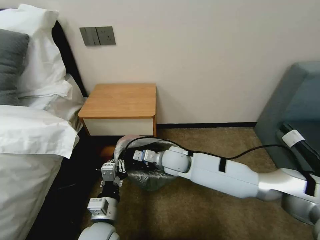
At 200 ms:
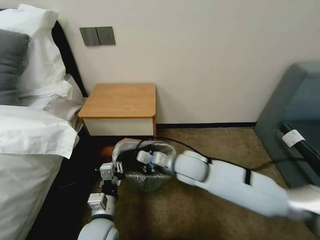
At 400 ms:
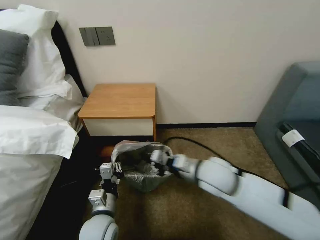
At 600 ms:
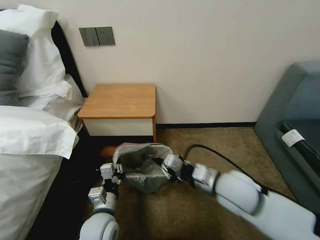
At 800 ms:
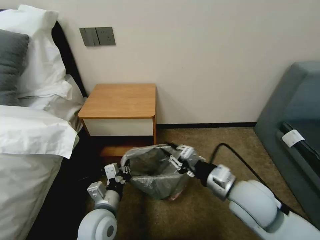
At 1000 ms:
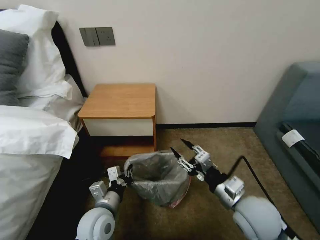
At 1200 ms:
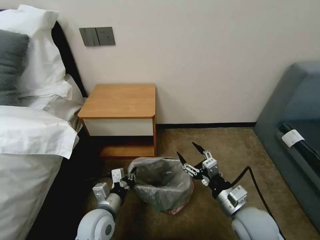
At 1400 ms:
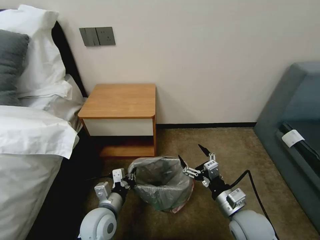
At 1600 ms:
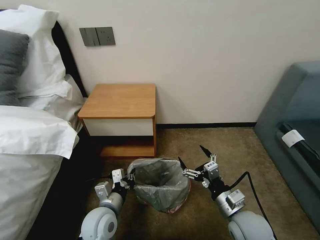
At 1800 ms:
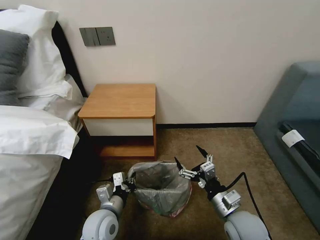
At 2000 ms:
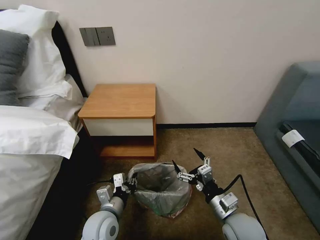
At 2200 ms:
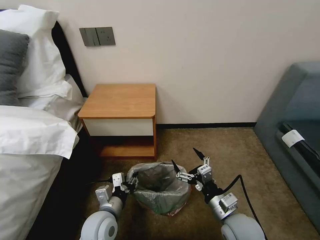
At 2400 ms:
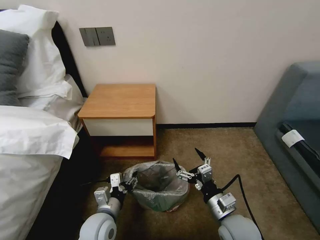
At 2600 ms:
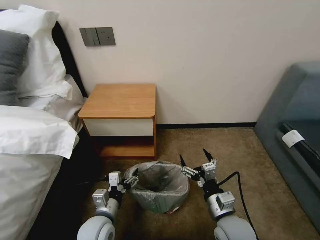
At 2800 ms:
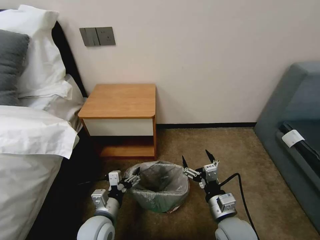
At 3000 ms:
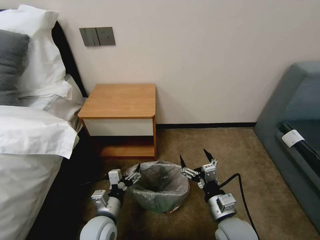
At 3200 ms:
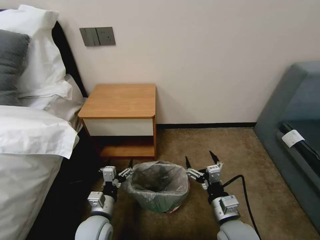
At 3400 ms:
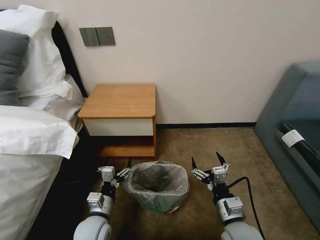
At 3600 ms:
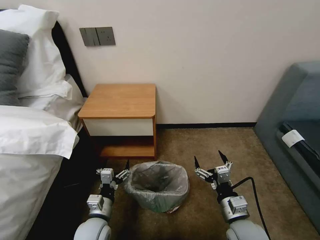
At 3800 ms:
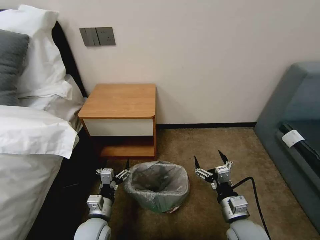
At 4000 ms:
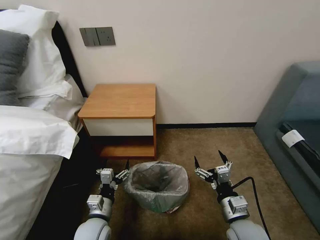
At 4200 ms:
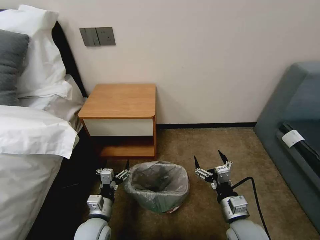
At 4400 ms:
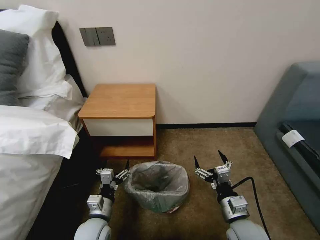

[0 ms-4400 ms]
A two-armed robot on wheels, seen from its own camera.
Task of the whole recording: Pick up the garbage bag from the table and place it over the trash can.
0 ms to 1400 ms: The left gripper shifts by roughly 5 cm. The right gripper shifts roughly 30 cm backward and to the right, and opens its fingers.
1400 ms to 3000 ms: The left gripper opens up.
3000 ms to 4400 ms: The grippers make only small movements.

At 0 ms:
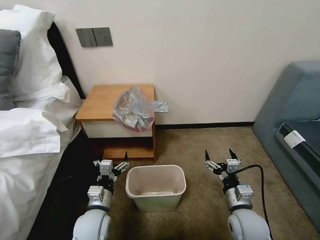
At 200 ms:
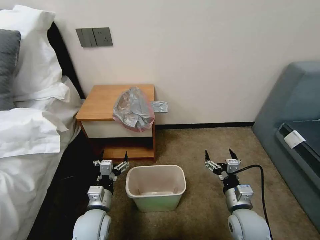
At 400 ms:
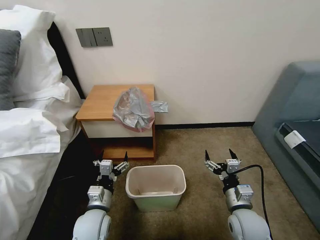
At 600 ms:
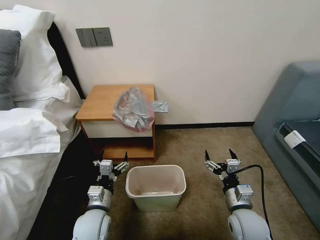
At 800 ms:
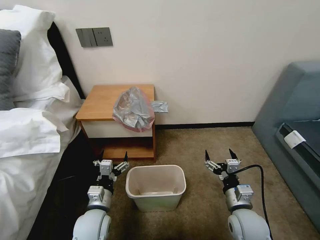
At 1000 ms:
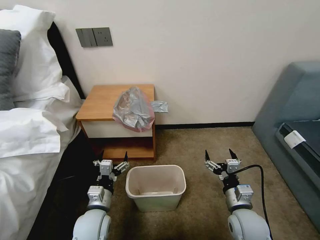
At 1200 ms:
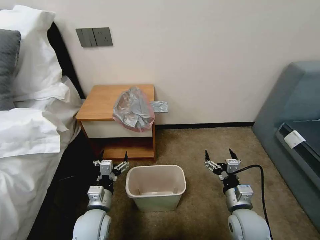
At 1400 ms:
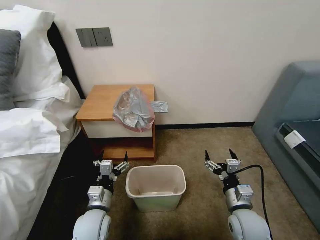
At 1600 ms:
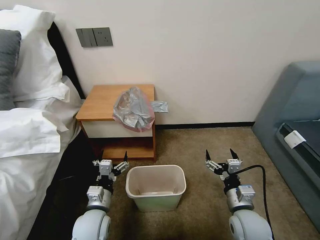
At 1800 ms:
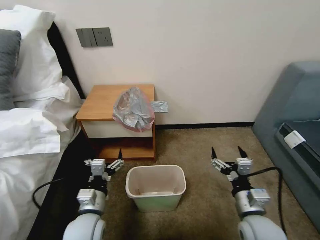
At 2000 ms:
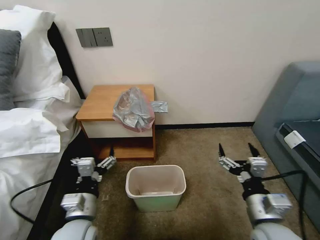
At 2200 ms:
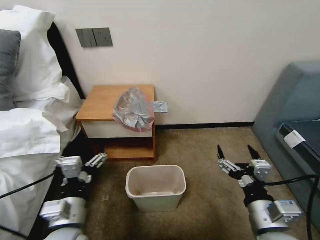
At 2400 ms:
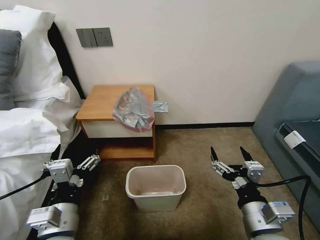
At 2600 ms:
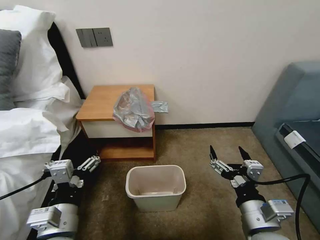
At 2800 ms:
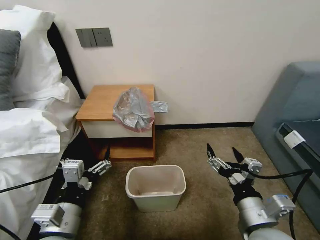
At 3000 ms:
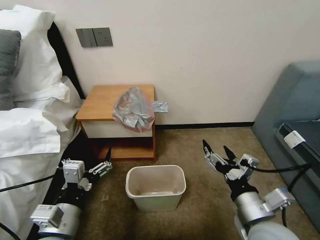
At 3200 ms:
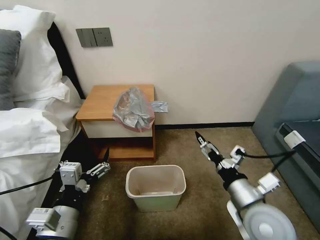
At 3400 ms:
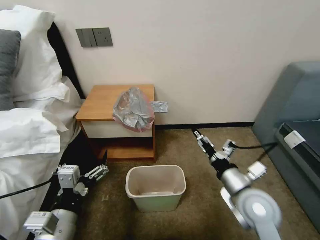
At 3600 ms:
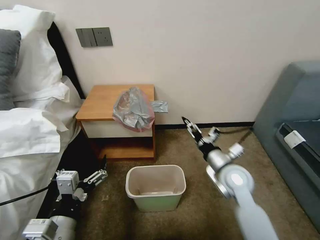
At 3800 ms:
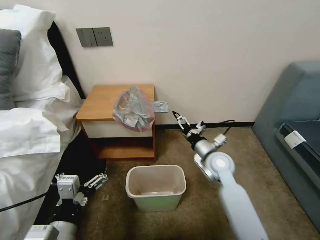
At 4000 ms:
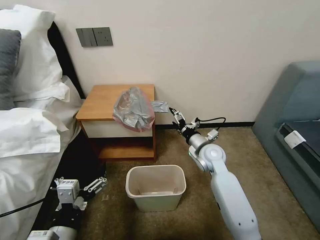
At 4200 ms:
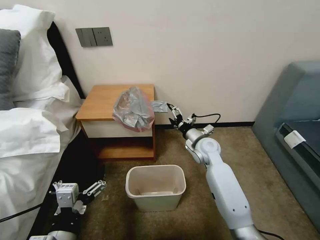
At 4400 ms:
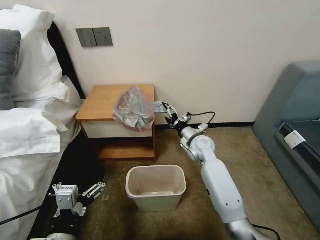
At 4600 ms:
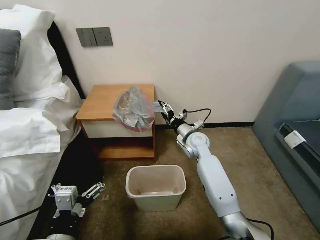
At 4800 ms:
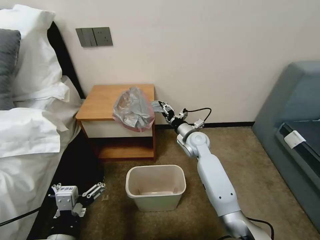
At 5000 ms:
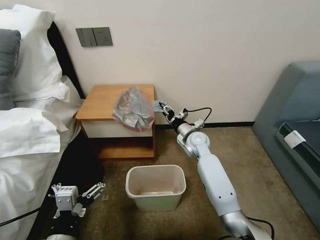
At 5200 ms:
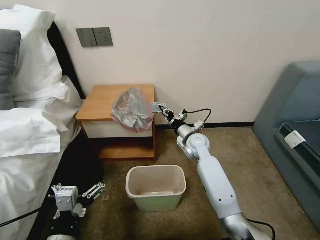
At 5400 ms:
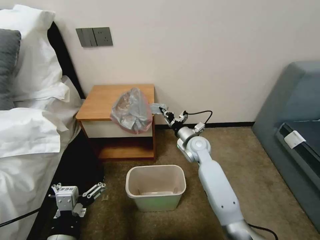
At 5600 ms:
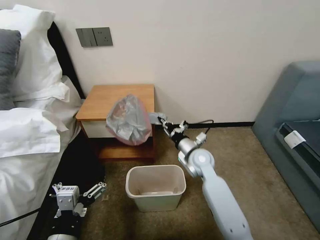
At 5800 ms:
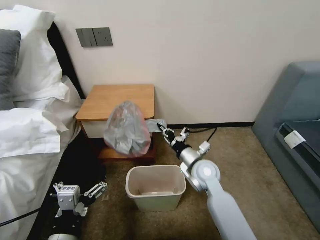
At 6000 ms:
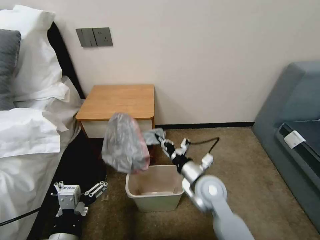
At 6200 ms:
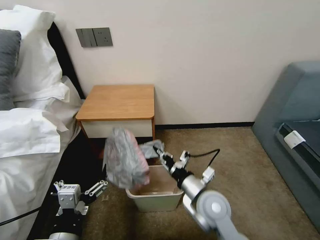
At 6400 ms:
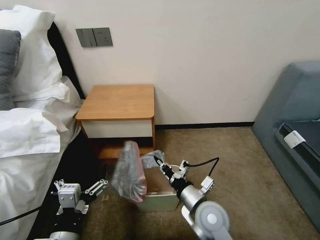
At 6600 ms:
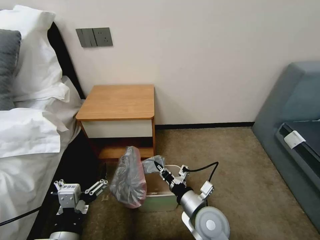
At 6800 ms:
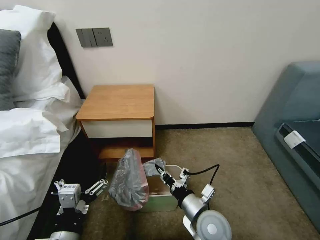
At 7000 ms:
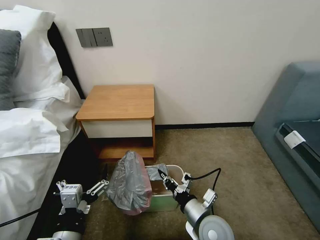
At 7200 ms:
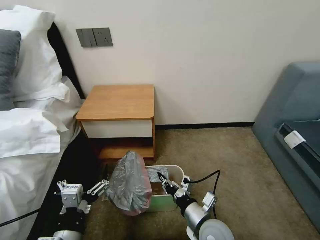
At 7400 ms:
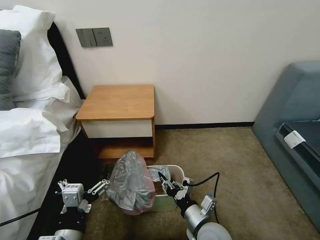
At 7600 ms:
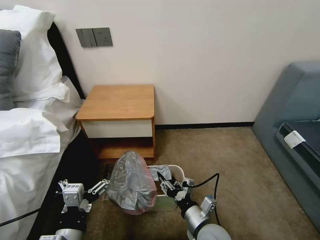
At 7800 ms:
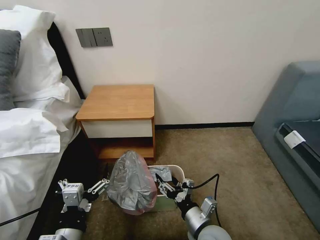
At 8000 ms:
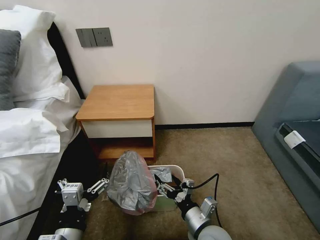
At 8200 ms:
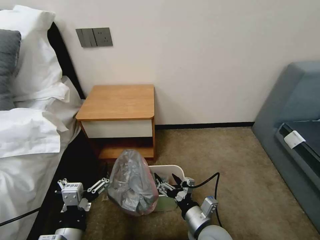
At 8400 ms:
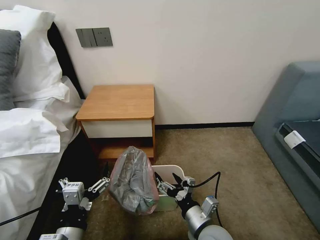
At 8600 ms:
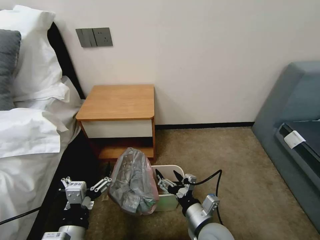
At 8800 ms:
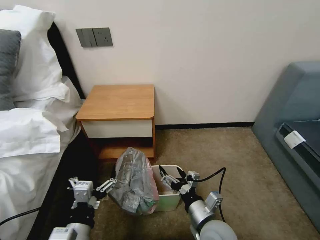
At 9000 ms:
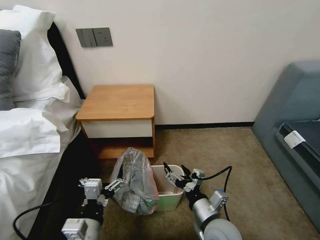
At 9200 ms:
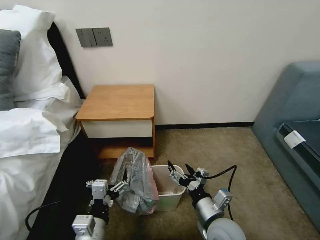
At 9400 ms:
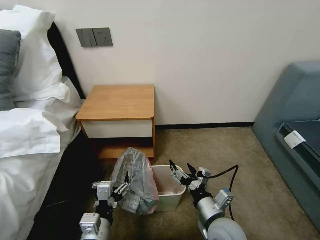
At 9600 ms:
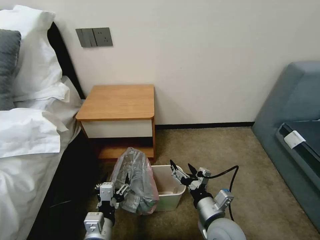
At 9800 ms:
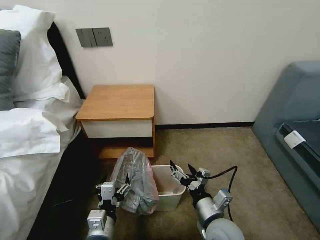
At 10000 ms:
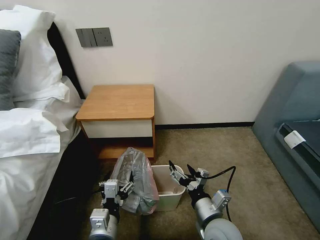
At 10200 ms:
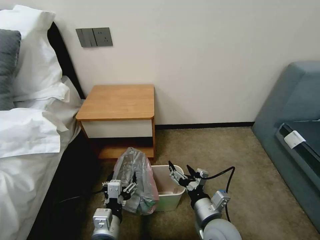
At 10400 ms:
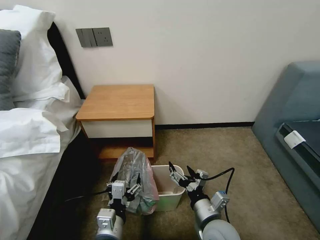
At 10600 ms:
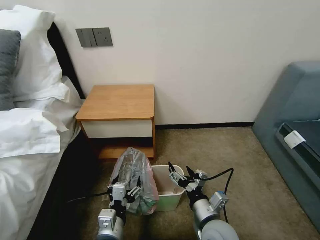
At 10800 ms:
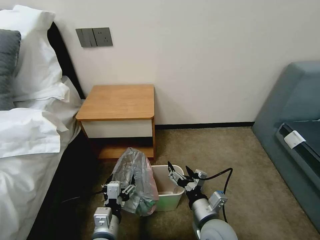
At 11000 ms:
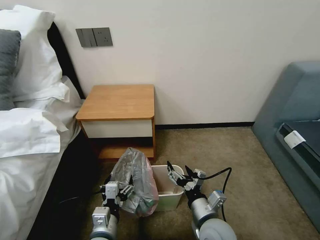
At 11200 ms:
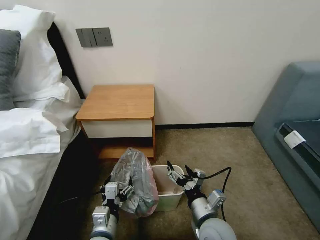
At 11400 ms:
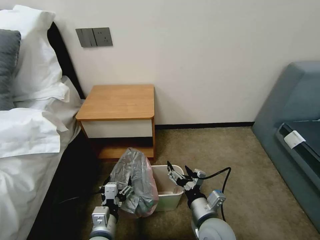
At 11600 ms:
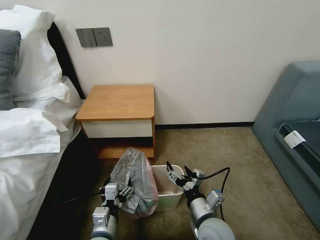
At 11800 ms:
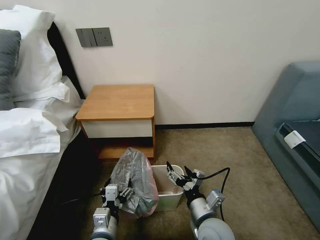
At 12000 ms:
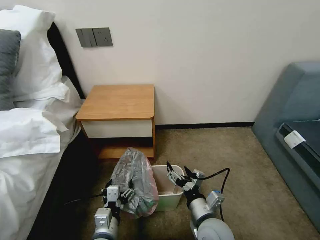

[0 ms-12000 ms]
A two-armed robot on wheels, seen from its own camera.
Task of the whole recording: Pick up the garbage bag from the table and place it over the trash can.
1600 ms to 3000 ms: The left gripper shifts some 15 cm upward and backward, while the right gripper is displaced upward by approximately 10 cm.
3000 ms to 4400 ms: The left gripper is displaced backward by approximately 5 cm; the right gripper shifts some 30 cm forward.
4400 ms to 6000 ms: The right gripper is displaced backward by about 15 cm, and closes its fingers.
6000 ms to 7600 ms: The right gripper goes roughly 15 cm backward and downward, and opens its fingers.
7600 ms to 9000 ms: The right gripper opens up.
9000 ms to 10400 ms: The left gripper shifts by approximately 5 cm.
10400 ms to 12000 ms: The grippers make only small movements.

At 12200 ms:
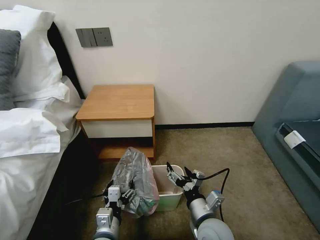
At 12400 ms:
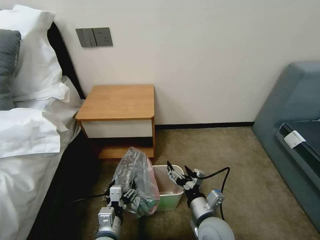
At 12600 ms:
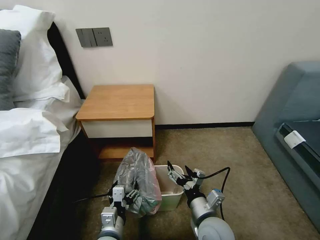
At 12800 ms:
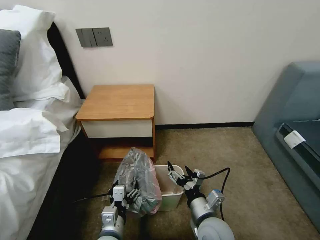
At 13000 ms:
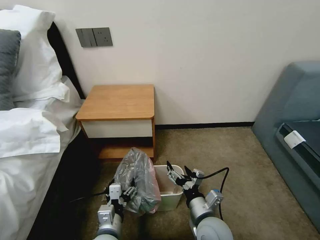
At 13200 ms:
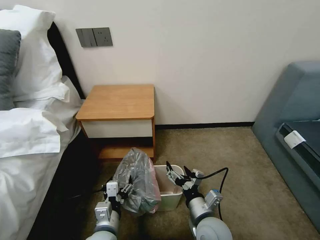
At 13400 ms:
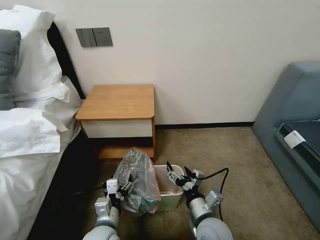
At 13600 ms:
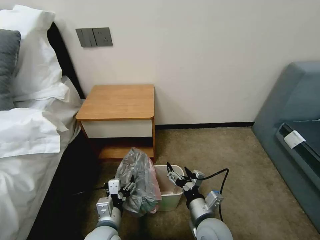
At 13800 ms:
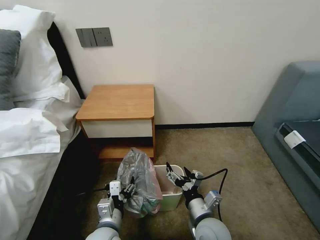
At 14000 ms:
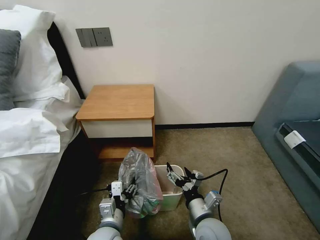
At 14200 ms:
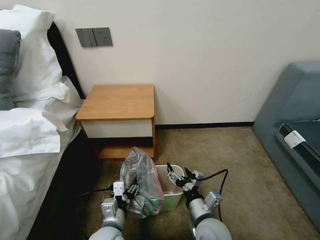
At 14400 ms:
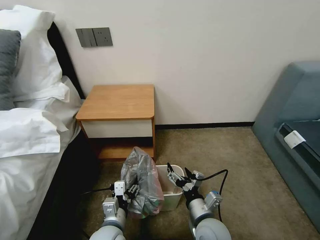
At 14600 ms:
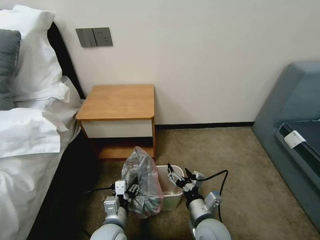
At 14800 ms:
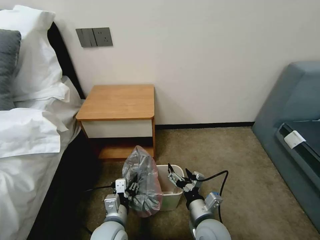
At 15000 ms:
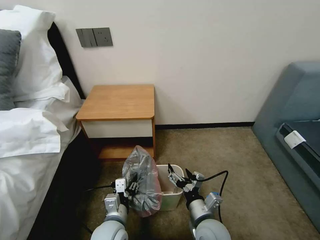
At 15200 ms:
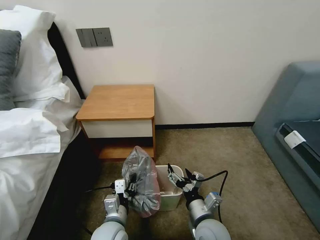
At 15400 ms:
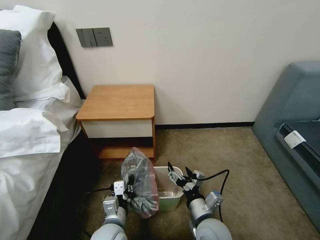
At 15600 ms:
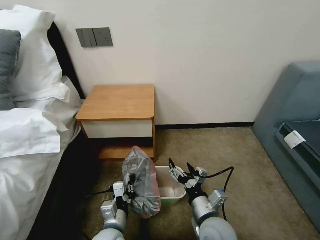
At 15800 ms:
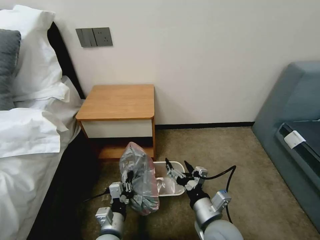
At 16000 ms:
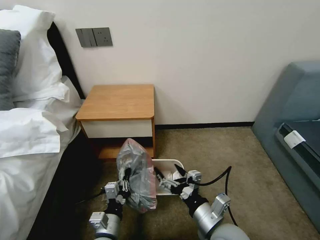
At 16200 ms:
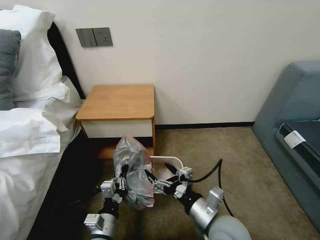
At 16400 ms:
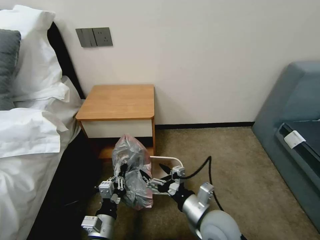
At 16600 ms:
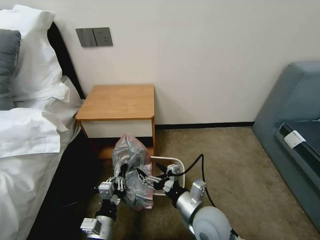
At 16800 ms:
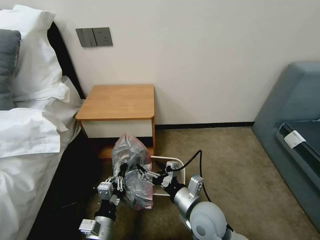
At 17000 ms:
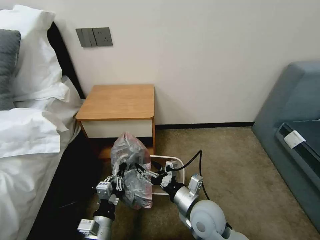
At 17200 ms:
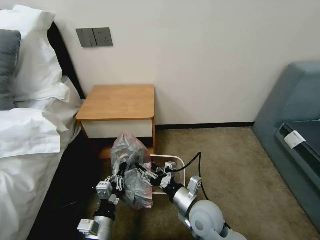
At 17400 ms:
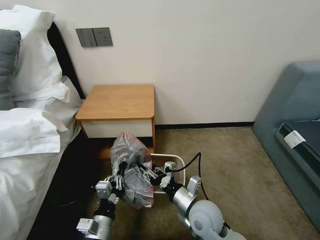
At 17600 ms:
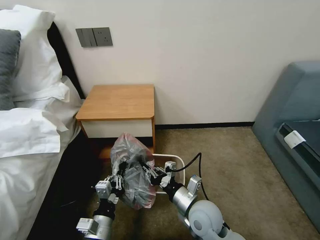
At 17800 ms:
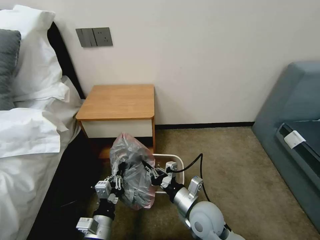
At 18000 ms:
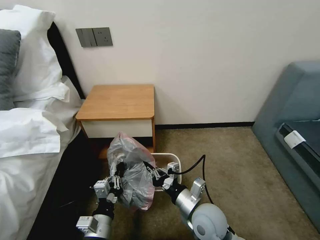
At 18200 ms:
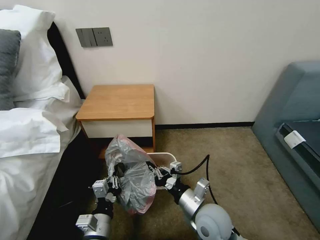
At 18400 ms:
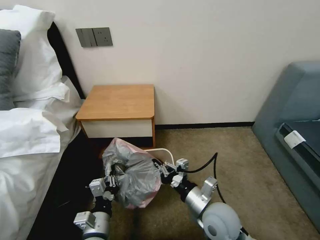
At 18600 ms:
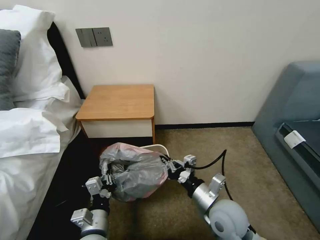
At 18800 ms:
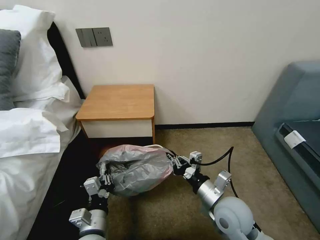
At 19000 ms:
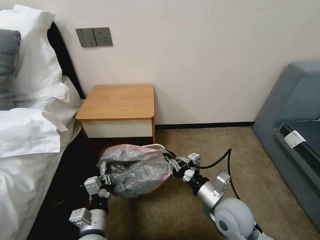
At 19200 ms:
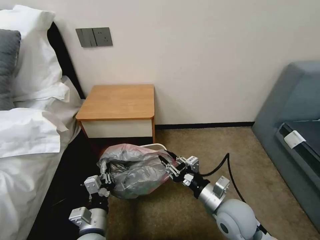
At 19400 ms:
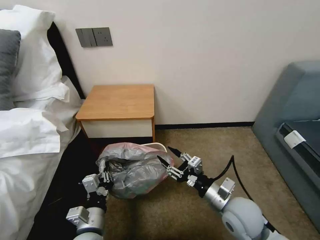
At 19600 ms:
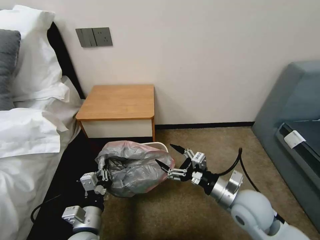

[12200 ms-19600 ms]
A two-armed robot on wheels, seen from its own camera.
Task of the whole recording: Pick up the garbage bag from the table and place it over the trash can.
12200 ms to 13600 ms: The grippers make only small movements.
13600 ms to 15200 ms: The left gripper closes.
15200 ms to 16600 ms: The left gripper shifts by some 5 cm, while the right gripper goes about 5 cm upward.
16600 ms to 18200 ms: The right gripper closes.
18200 ms to 19600 ms: The right gripper heads to the right, covering some 10 cm, and opens.
